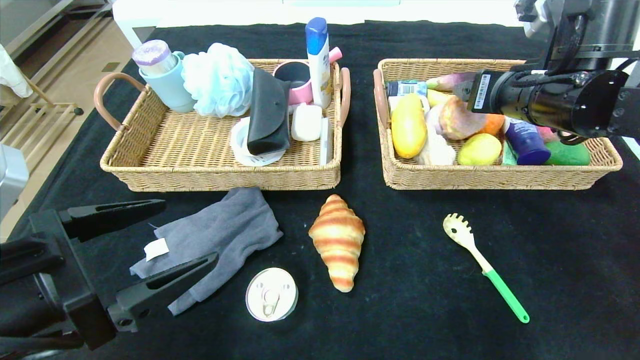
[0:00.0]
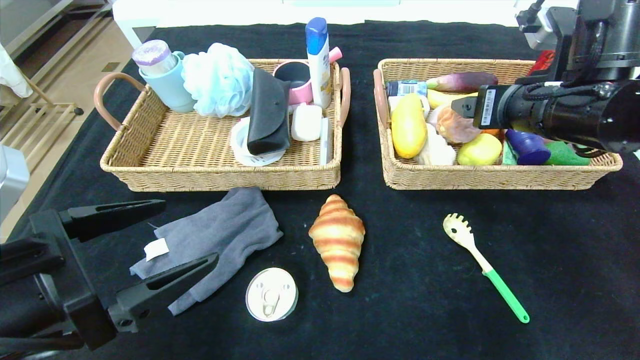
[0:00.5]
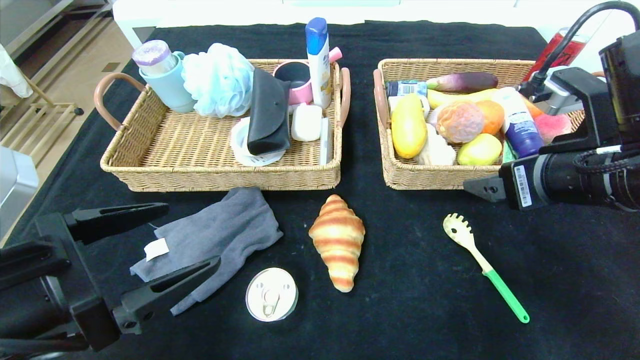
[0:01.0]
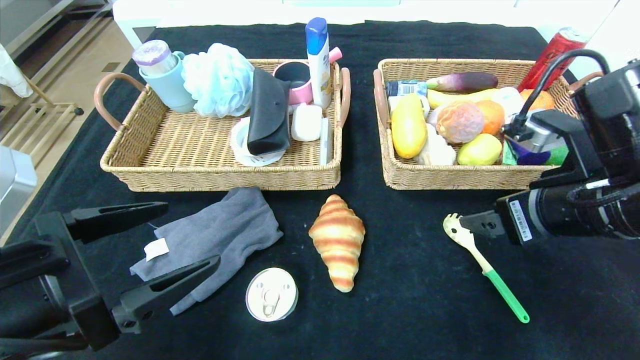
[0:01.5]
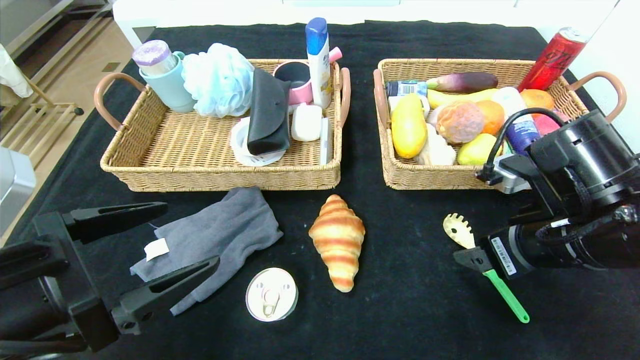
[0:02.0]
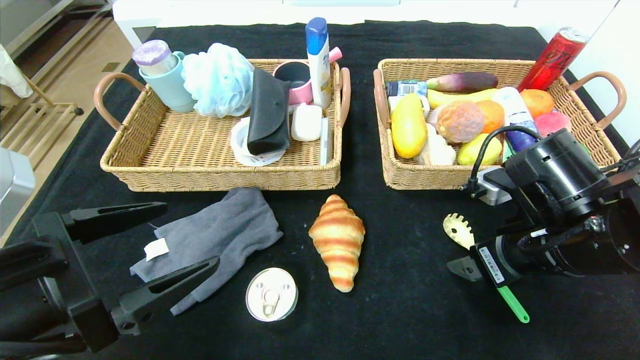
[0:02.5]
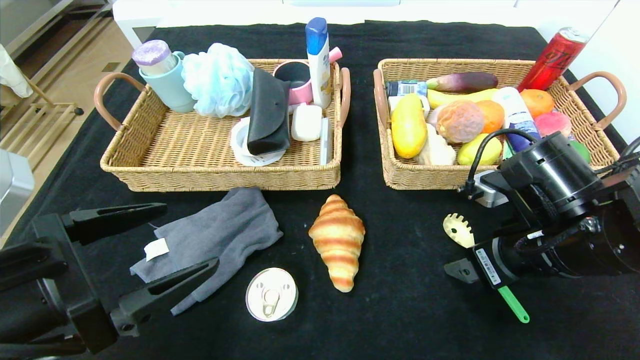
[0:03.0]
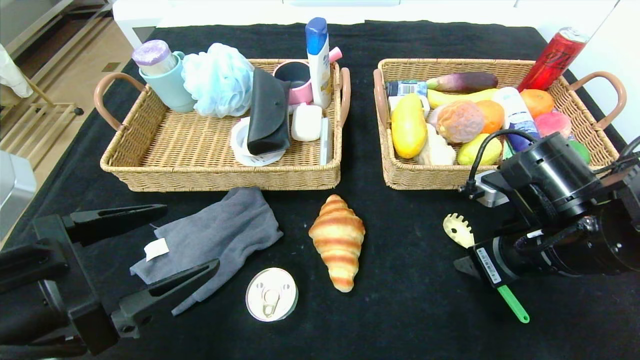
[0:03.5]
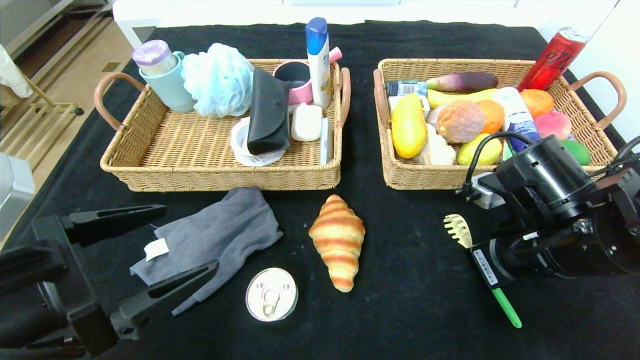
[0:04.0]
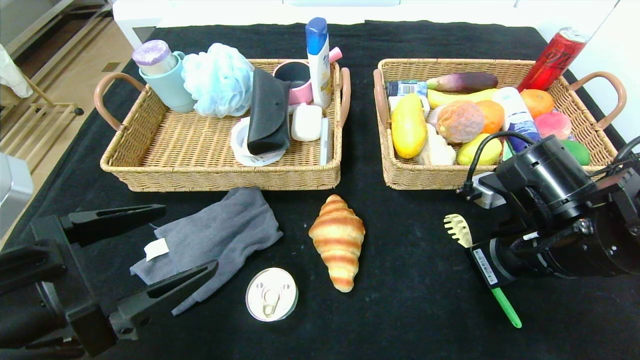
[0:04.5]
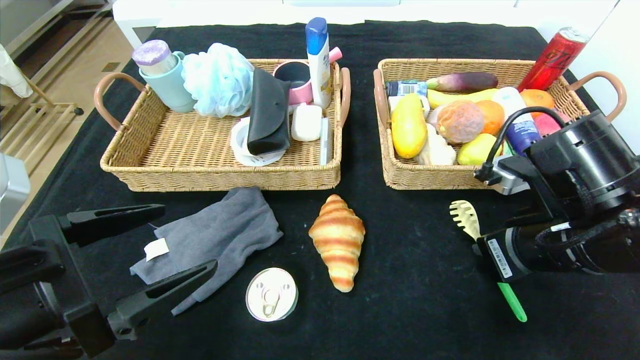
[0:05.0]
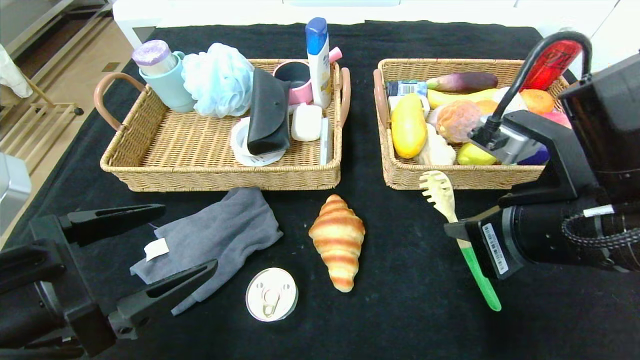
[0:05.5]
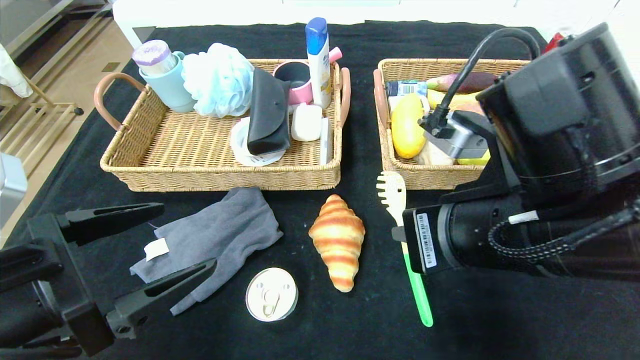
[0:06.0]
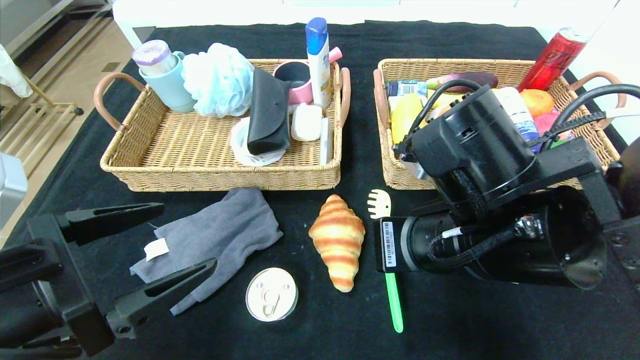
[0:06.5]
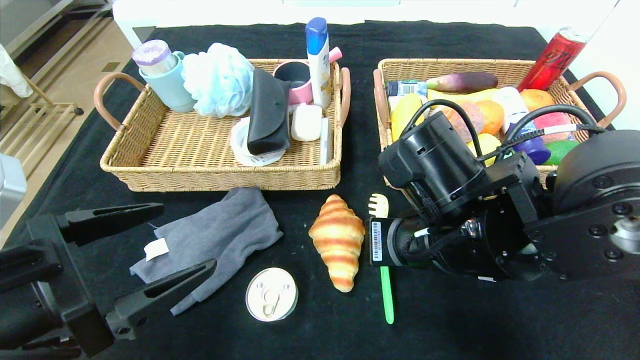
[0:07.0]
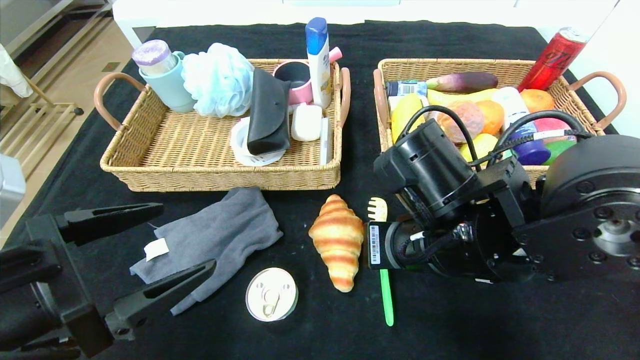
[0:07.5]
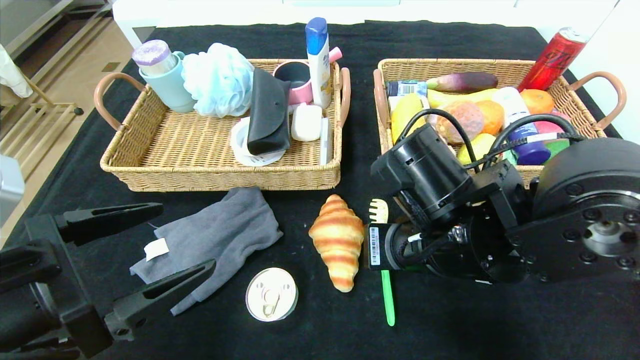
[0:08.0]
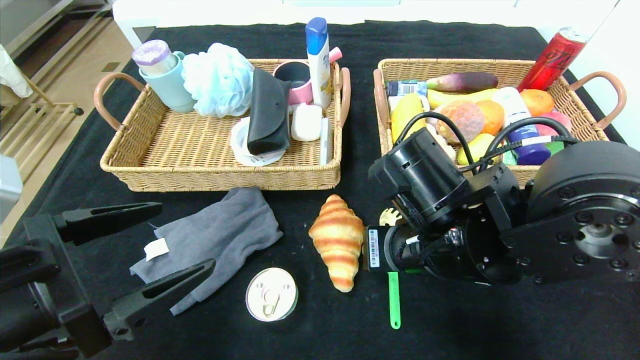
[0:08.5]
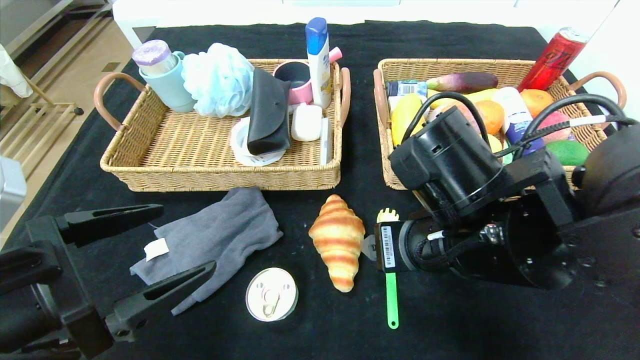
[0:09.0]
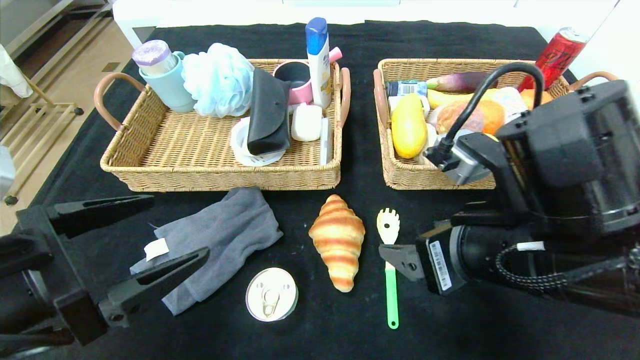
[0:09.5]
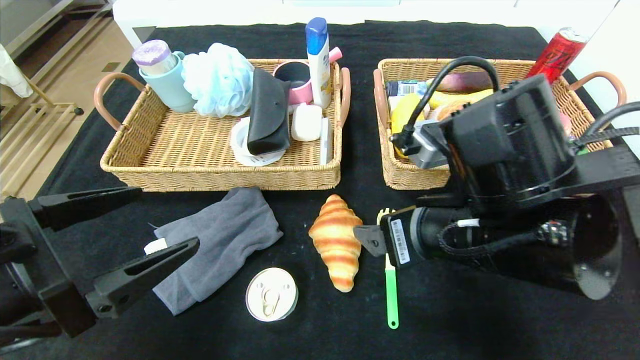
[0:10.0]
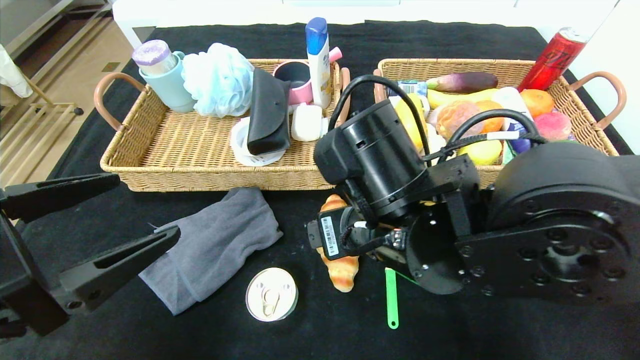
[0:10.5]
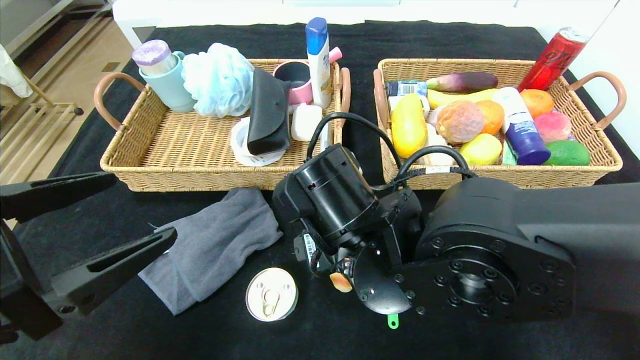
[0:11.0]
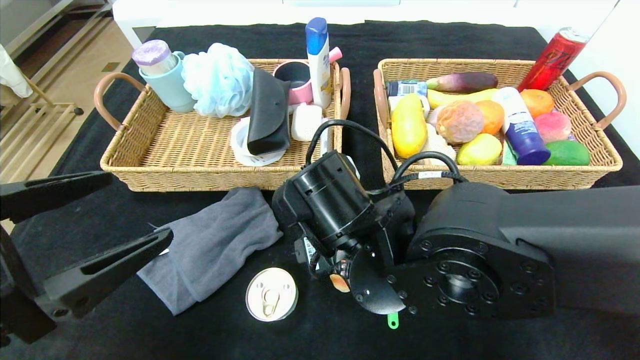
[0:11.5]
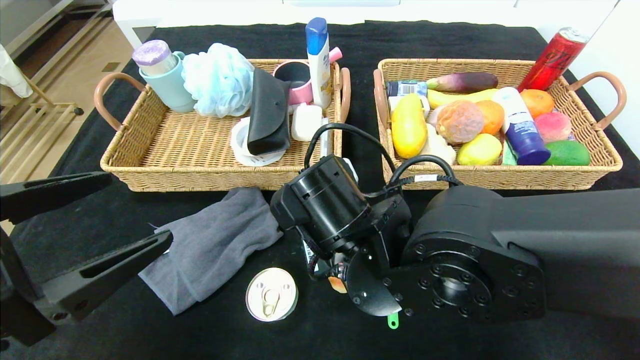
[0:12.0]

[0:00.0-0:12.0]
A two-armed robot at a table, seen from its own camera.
Step, 0:00.0 to 0:08.5: Place the back scratcher in the center of the table.
0:00.0 to 0:02.0: The right gripper shifts about 15 cm backward and downward.
0:02.0 to 0:04.0: The right gripper closes its fingers.
0:04.0 to 0:06.0: The right gripper is displaced to the left, upward and backward by roughly 10 cm.
0:06.0 to 0:08.0: The right gripper moves downward, some 5 cm.
0:08.0 to 0:10.0: The right gripper opens.
0:10.0 to 0:12.0: The right gripper is displaced to the left and downward by approximately 10 cm, and closes.

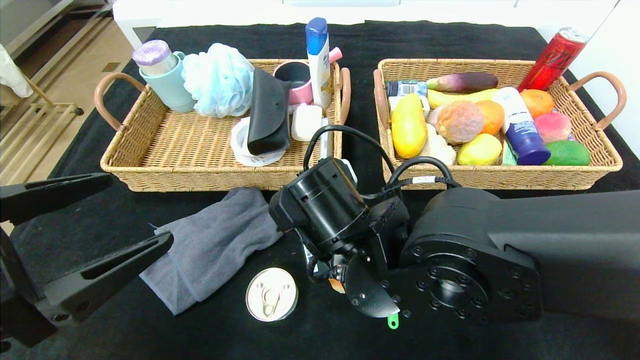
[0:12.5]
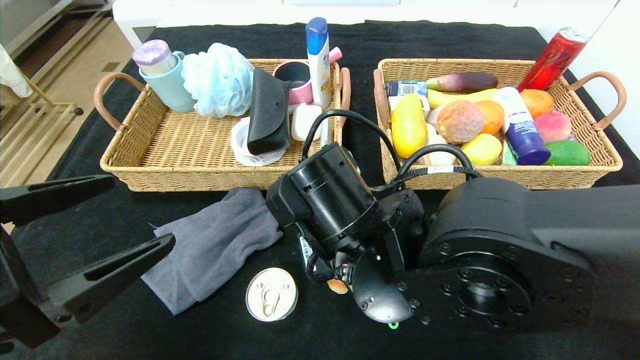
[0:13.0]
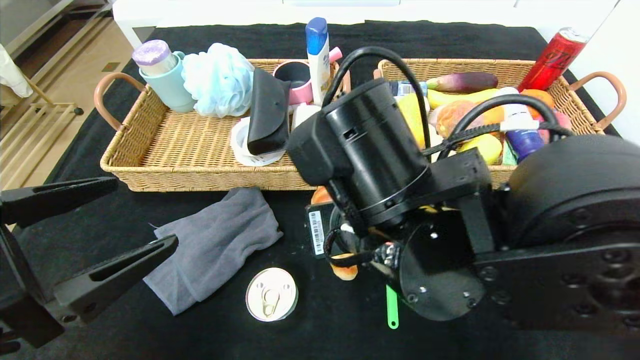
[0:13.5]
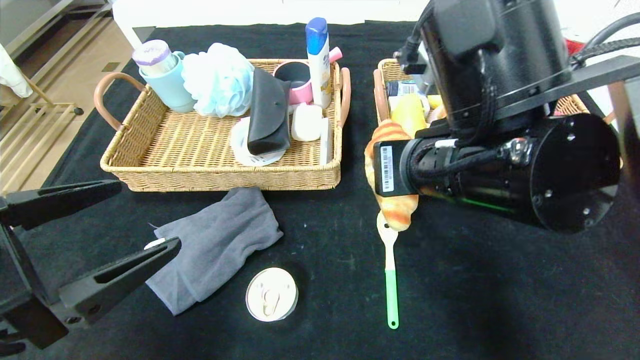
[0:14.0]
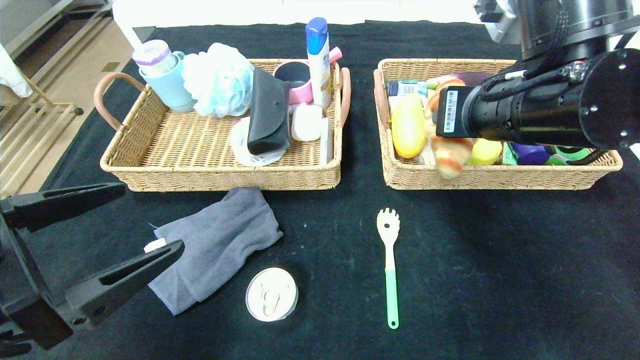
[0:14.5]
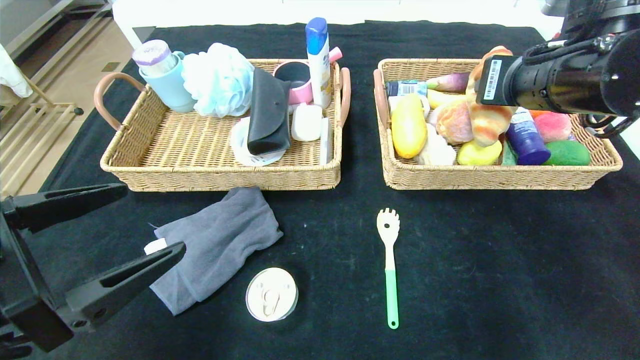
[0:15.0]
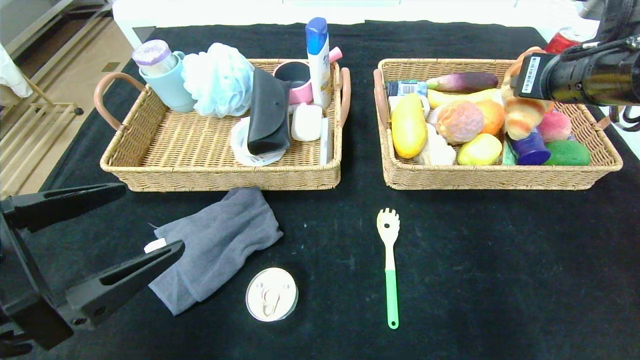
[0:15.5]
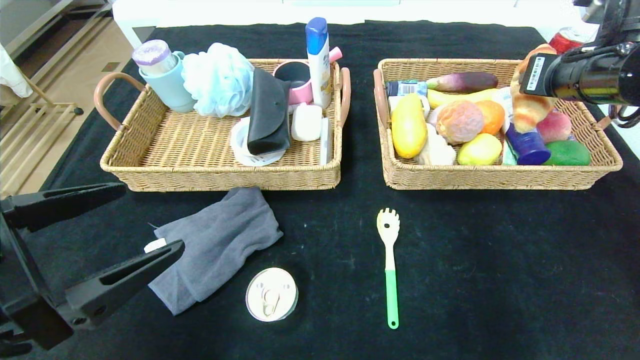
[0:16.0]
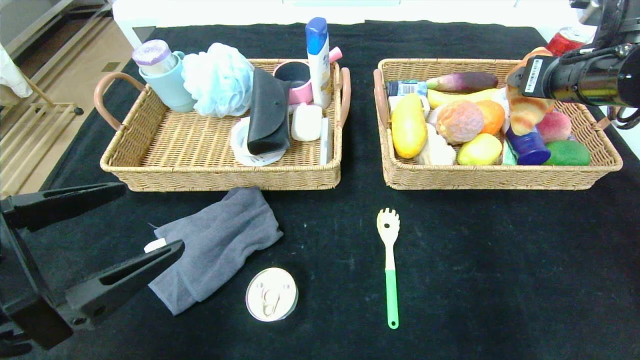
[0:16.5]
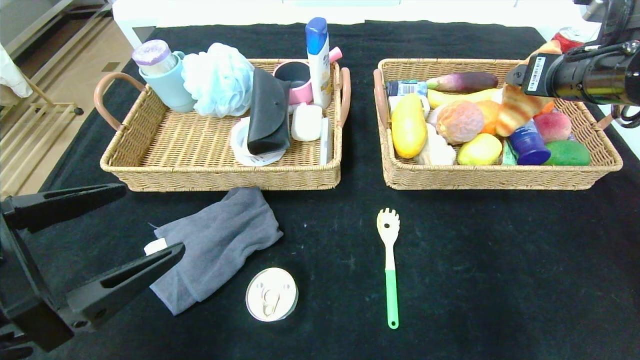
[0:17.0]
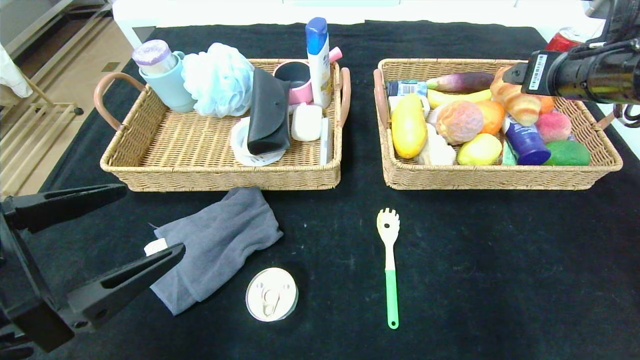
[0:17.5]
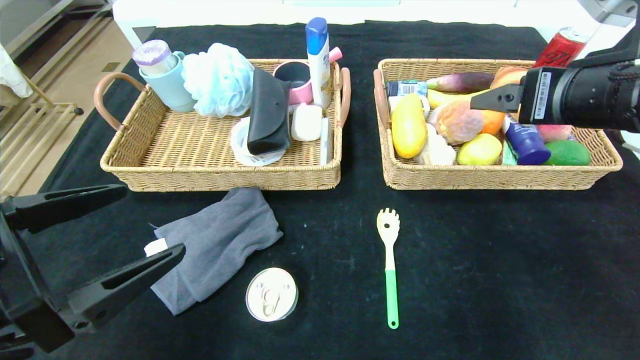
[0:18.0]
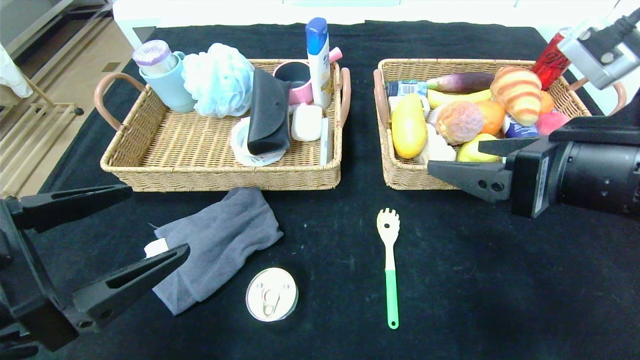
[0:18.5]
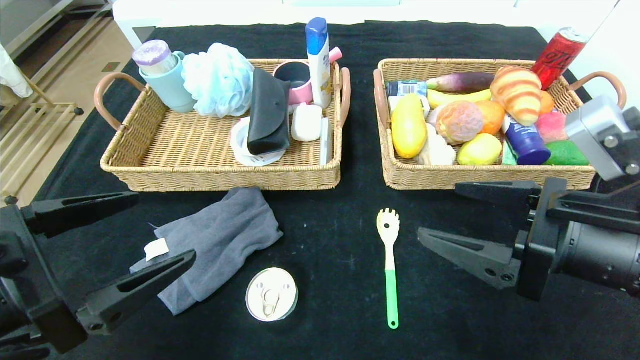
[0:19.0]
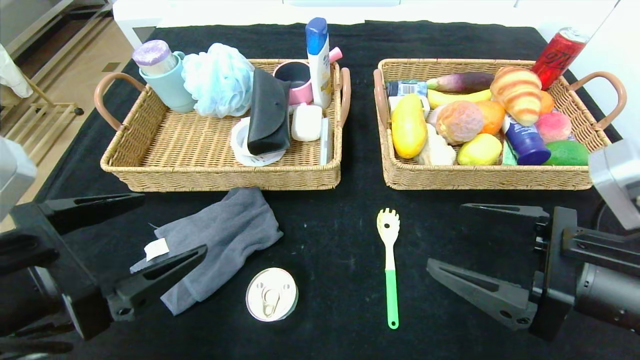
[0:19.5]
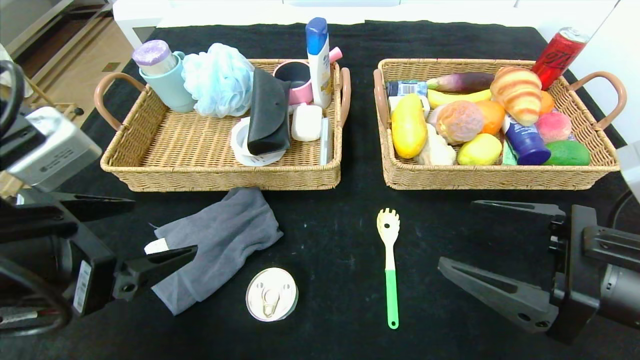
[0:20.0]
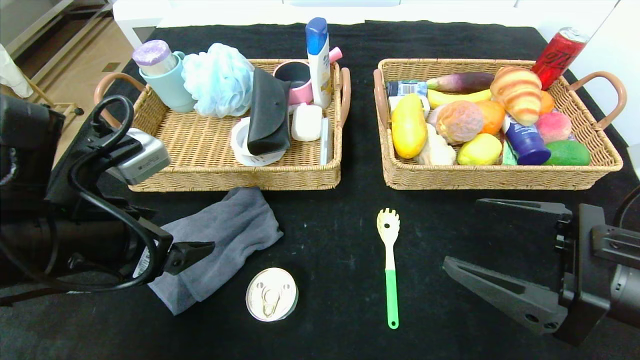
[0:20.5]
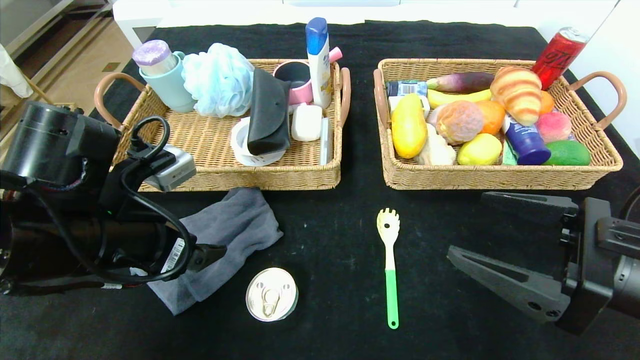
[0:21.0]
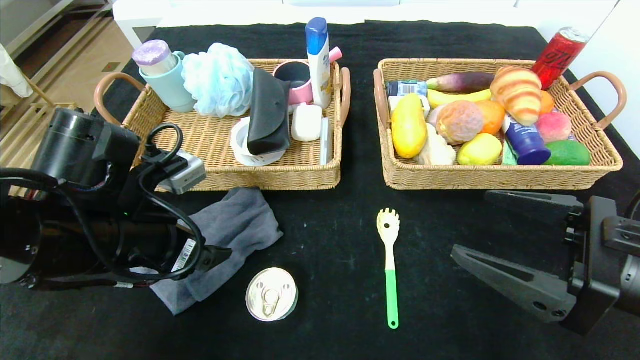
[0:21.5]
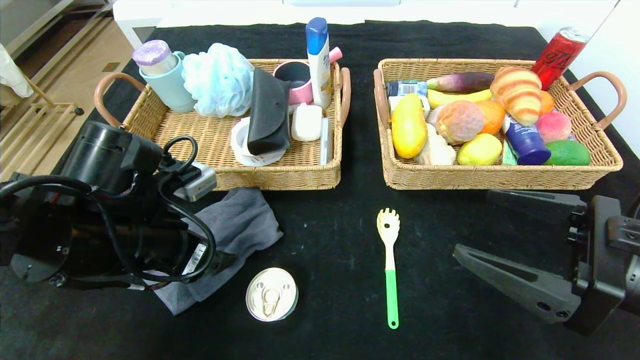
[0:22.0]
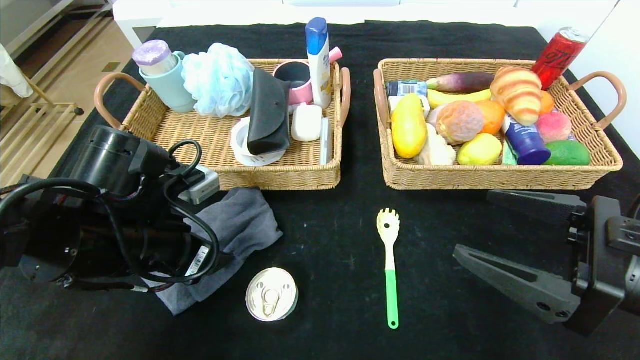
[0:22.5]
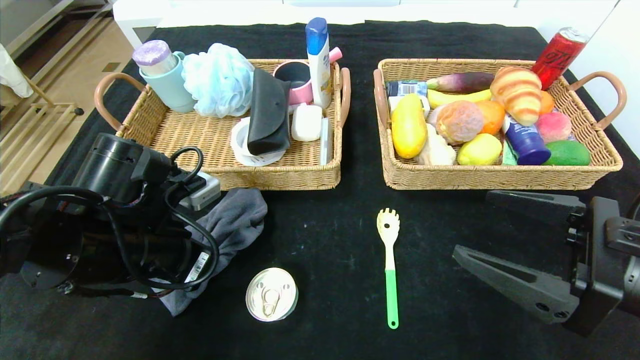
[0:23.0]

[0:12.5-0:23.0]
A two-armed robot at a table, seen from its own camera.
Step, 0:12.5 to 0:17.0: Grasp the croissant and put it in the right basket.
0:12.5 to 0:14.5: The right gripper heads to the right and upward, covering some 20 cm.
0:14.5 to 0:16.5: The right gripper goes about 15 cm to the right and forward, and opens its fingers.
0:16.5 to 0:19.0: The right gripper travels backward and downward by approximately 20 cm.
0:19.0 to 0:21.0: The left gripper shifts approximately 10 cm forward.
0:21.0 to 0:23.0: The left gripper closes.
